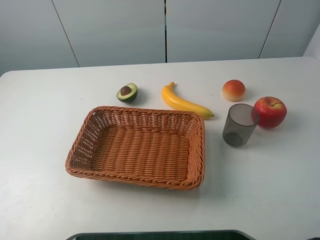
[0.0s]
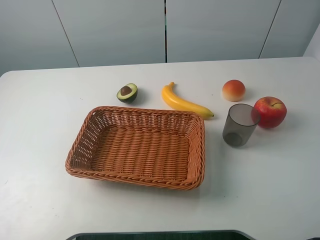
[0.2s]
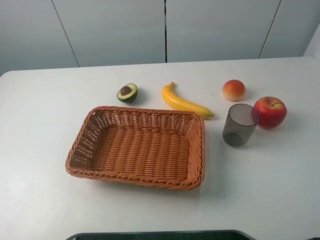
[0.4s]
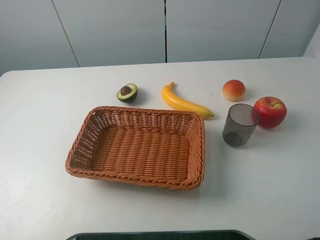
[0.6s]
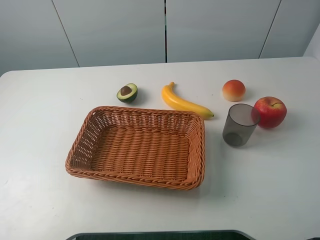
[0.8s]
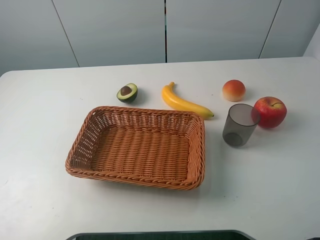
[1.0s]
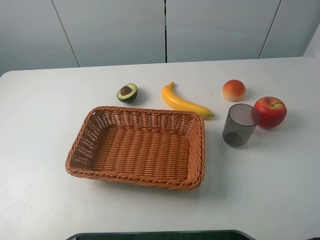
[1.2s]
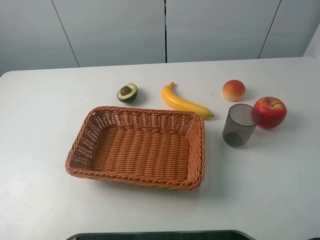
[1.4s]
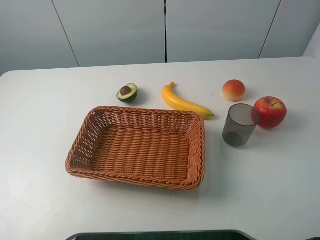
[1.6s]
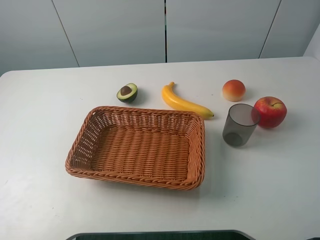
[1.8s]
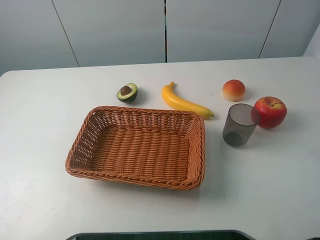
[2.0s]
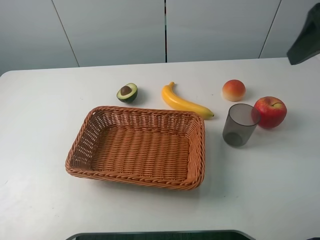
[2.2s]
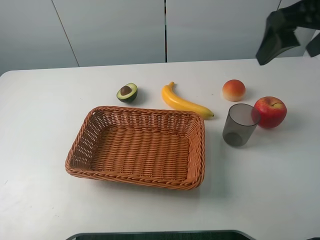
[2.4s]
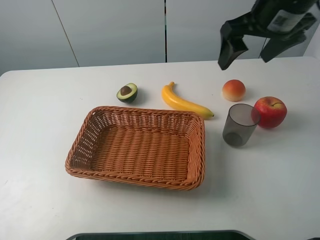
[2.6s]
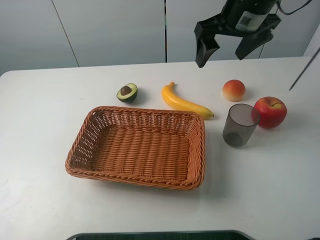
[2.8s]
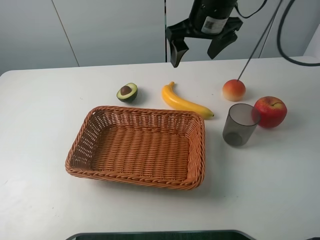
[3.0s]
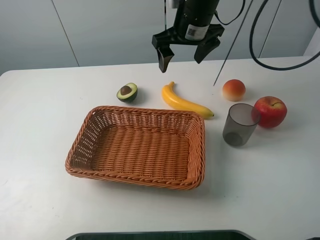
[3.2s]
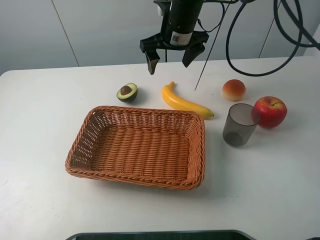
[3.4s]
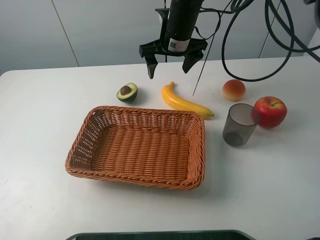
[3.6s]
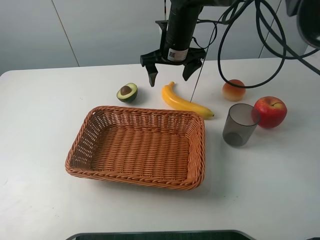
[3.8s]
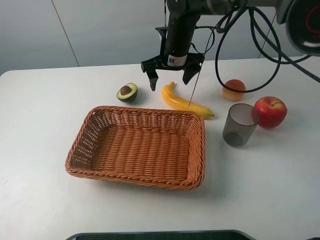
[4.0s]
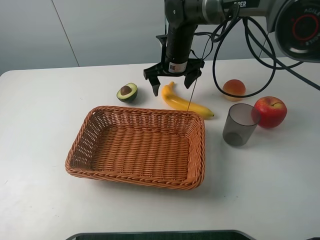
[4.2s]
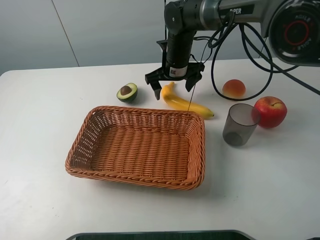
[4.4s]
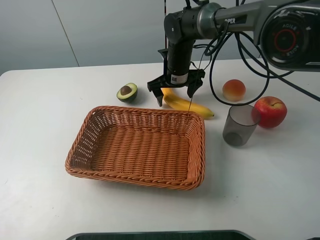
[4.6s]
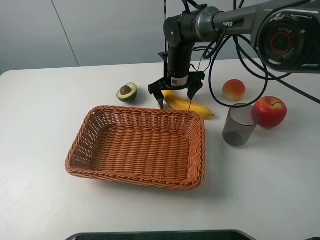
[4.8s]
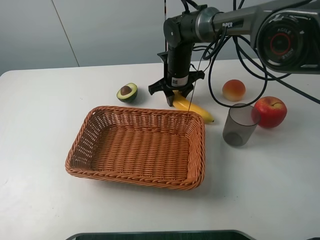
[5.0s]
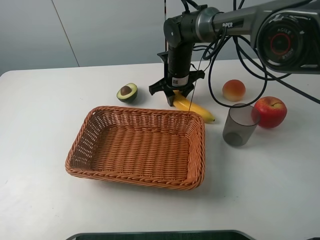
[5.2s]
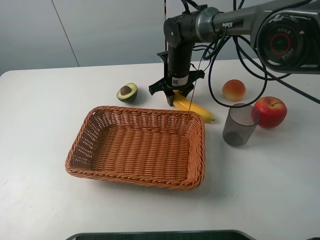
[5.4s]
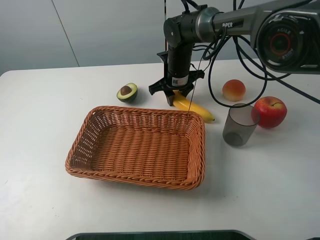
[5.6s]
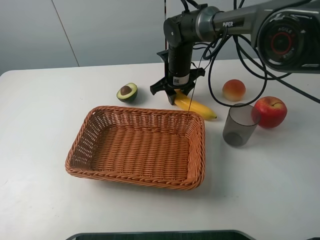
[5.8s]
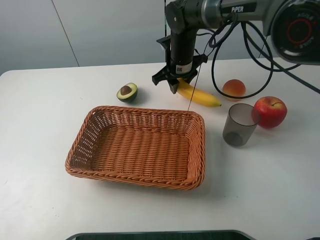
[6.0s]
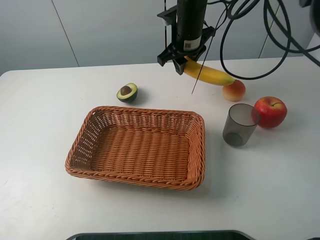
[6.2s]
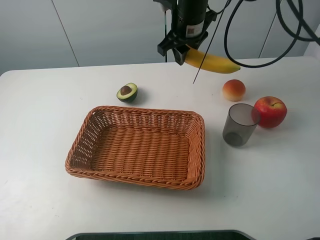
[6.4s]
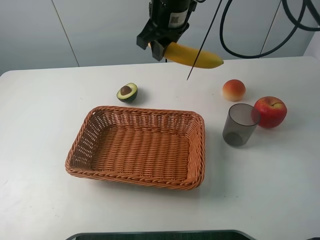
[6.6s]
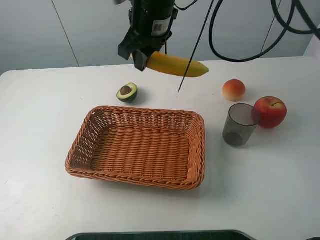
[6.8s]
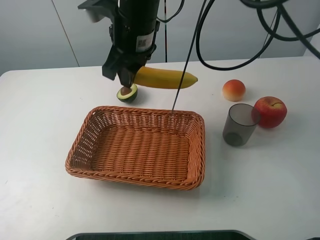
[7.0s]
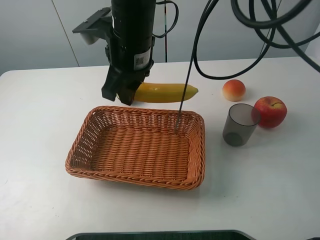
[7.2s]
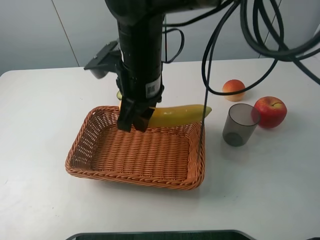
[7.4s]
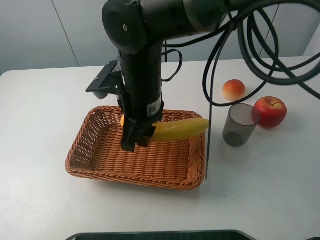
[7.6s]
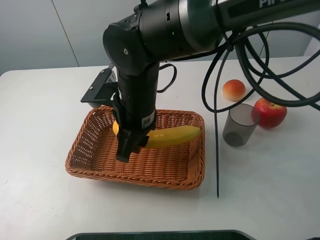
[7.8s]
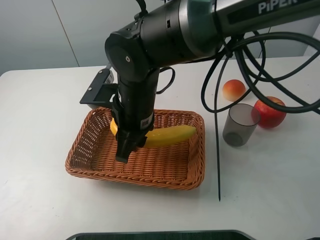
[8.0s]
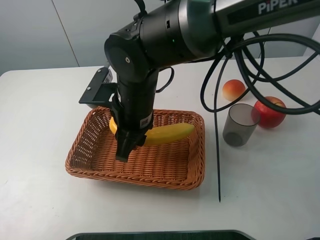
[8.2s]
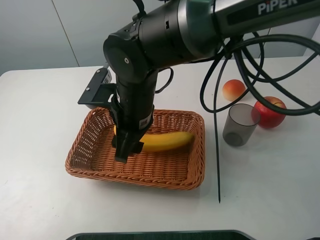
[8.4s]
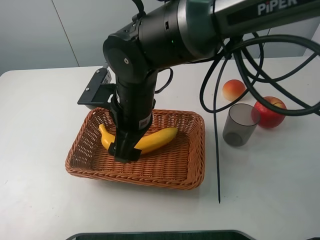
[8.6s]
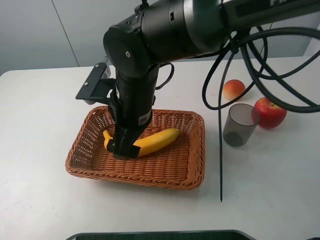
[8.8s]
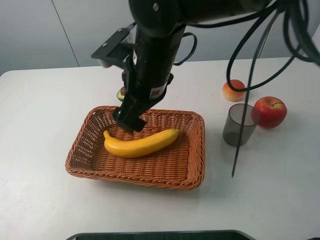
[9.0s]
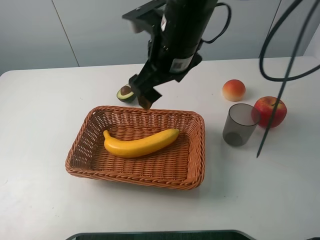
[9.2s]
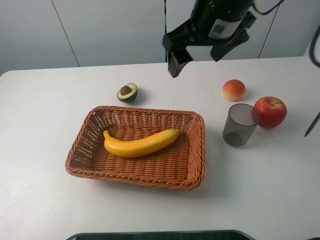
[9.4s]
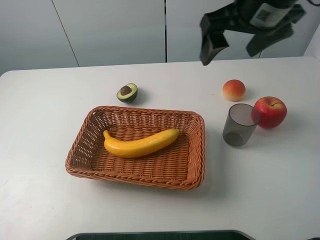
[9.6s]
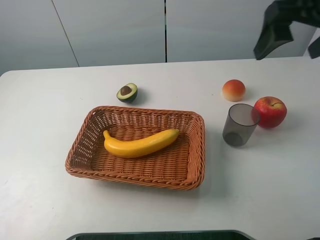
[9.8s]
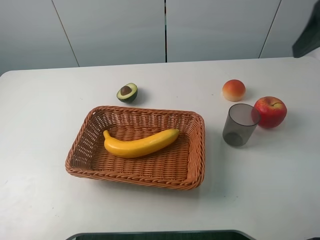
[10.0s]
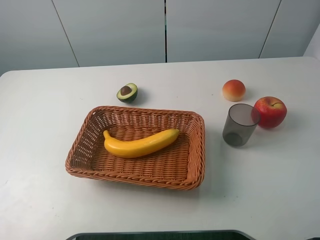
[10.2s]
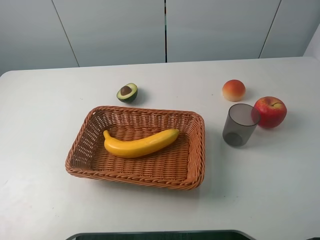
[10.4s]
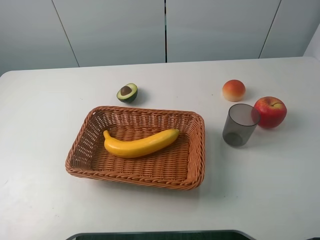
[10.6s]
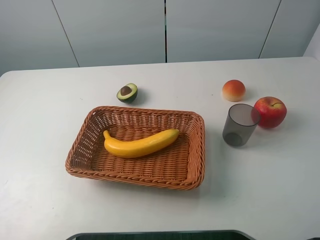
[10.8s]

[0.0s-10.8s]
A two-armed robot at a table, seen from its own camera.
Task of the whole recording: randomly pick up an item from the table and put it in the basket.
Step, 0.0s to 5.0s: Grasp the banana with the right gripper.
Step, 5.2s to 9.0s: Place the banana into the basket with the right gripper.
1.6s to 3.0s: The right gripper moves forward and to the left, approximately 40 cm.
3.0s to 4.6s: The right gripper heads downward, covering about 15 cm.
4.6s to 6.2s: The right gripper is displaced upward by approximately 10 cm, and closes.
6.2s to 7.8s: The right gripper heads backward and to the left, covering roughly 20 cm.
7.8s to 9.2s: The right gripper goes about 10 cm upward and to the right, and opens.
9.2s to 10.8s: The right gripper moves backward and to the right, about 35 cm.

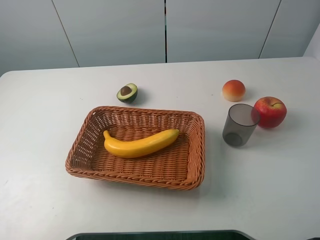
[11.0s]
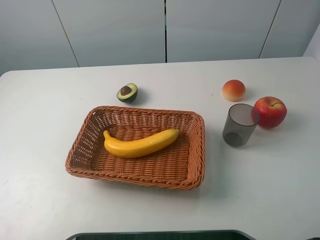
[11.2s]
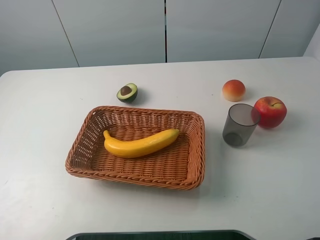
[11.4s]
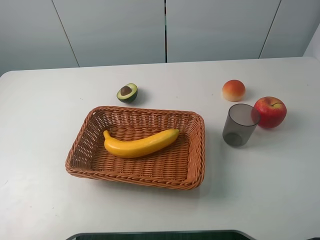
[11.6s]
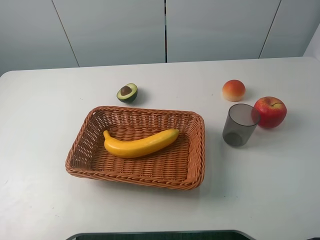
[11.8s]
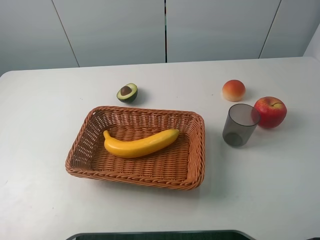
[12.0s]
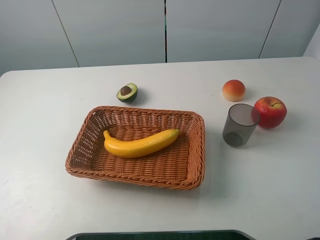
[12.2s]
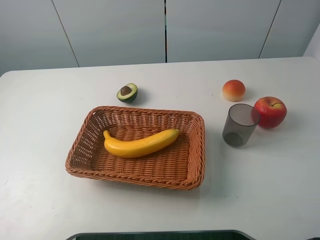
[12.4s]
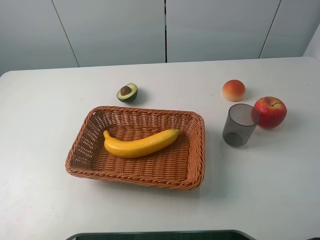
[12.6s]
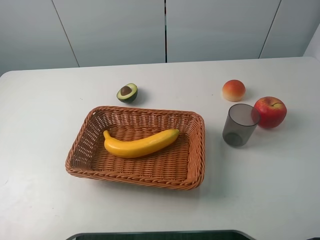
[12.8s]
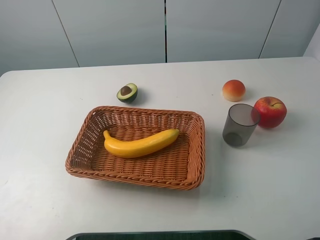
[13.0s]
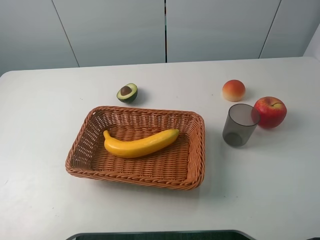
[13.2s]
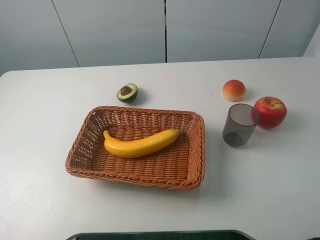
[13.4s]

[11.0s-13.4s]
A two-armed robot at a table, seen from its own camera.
Task of the whole recording: randomly pick up an item from the table and put it in the basket.
12.2s to 13.4s: Both grippers stay about where they are.

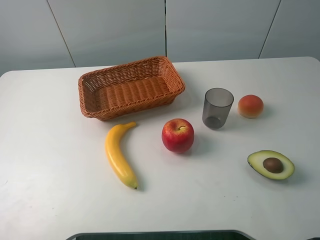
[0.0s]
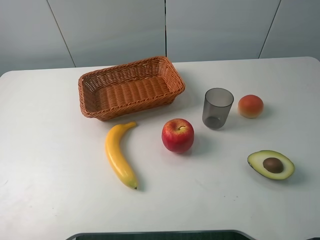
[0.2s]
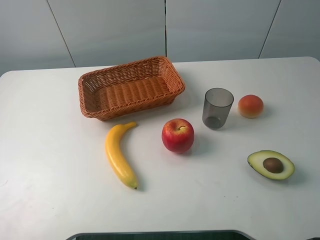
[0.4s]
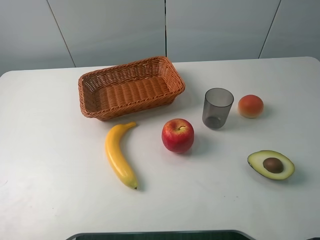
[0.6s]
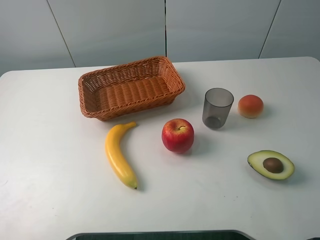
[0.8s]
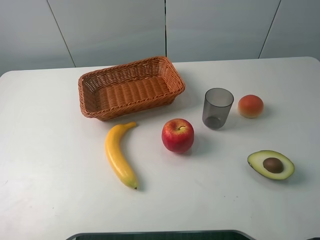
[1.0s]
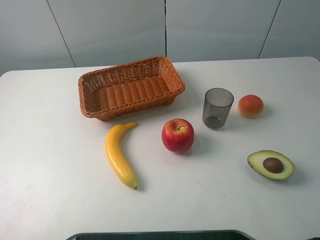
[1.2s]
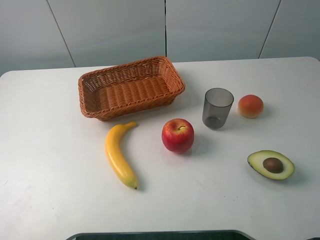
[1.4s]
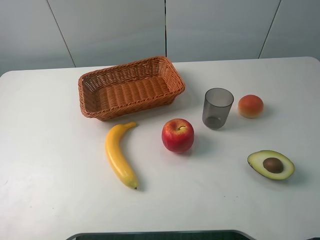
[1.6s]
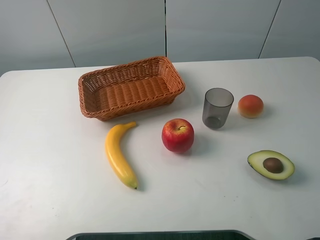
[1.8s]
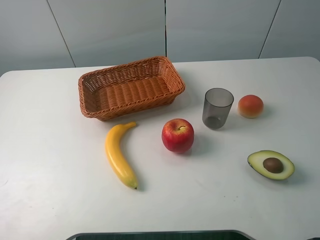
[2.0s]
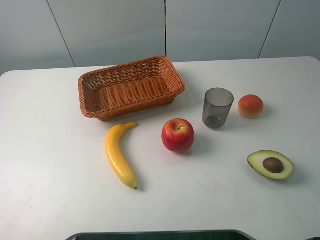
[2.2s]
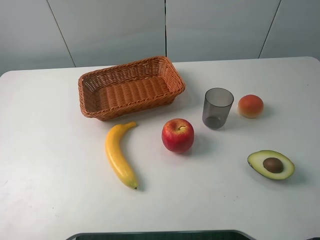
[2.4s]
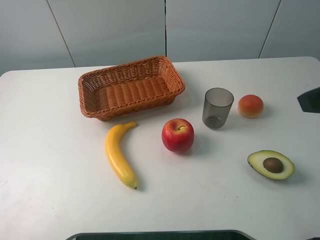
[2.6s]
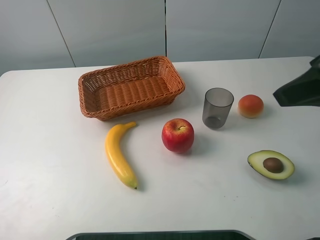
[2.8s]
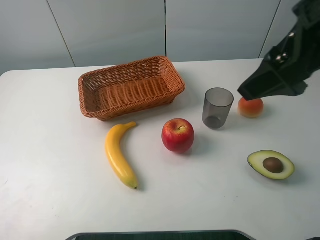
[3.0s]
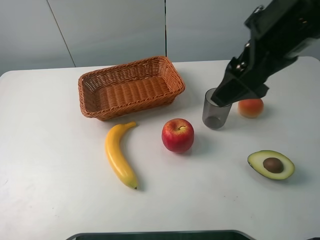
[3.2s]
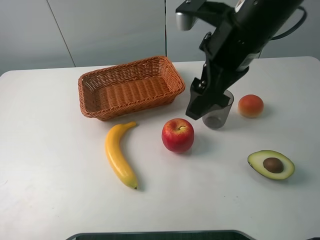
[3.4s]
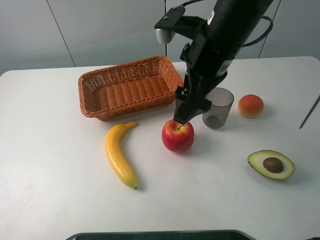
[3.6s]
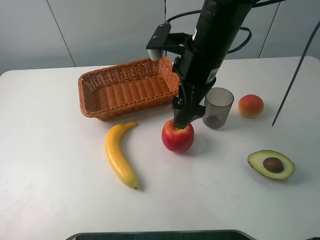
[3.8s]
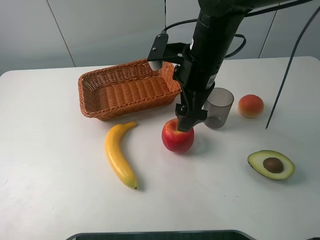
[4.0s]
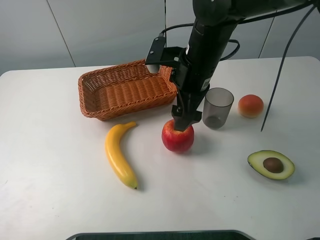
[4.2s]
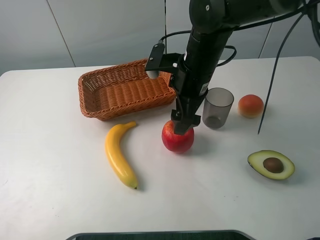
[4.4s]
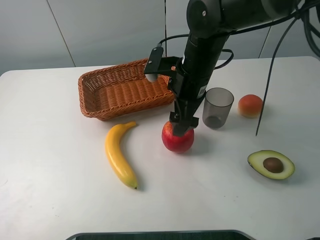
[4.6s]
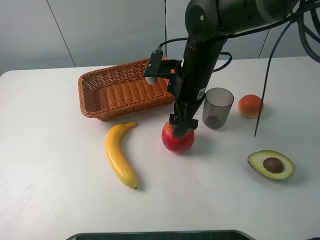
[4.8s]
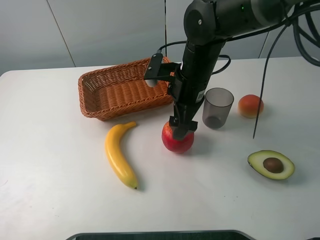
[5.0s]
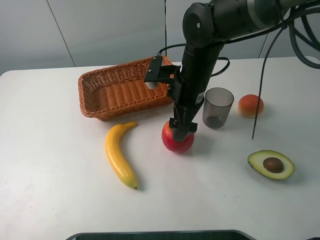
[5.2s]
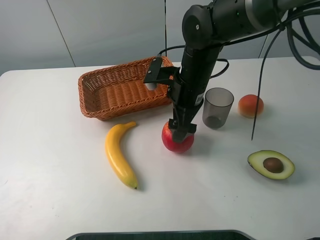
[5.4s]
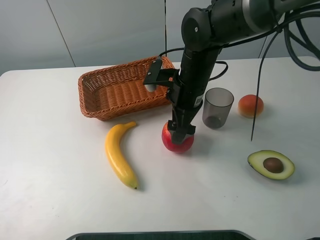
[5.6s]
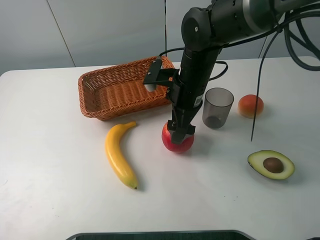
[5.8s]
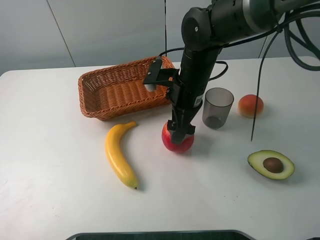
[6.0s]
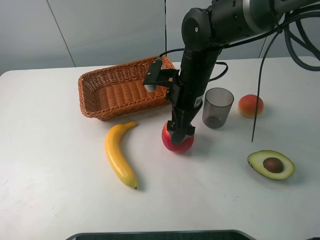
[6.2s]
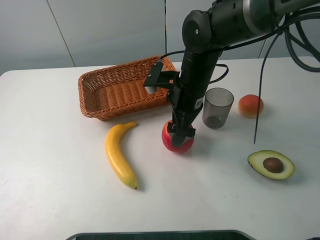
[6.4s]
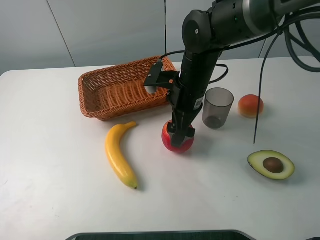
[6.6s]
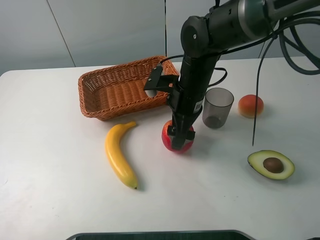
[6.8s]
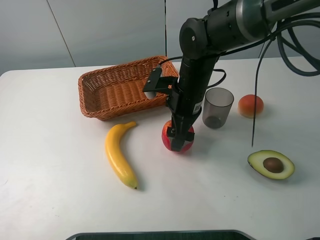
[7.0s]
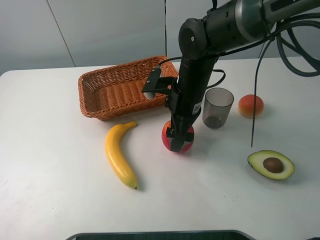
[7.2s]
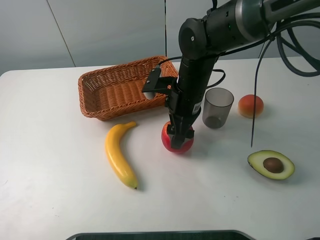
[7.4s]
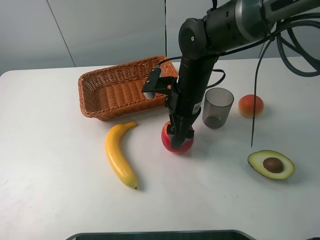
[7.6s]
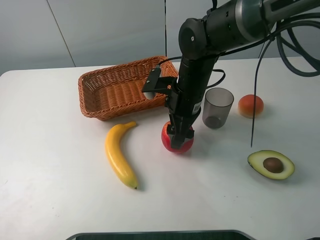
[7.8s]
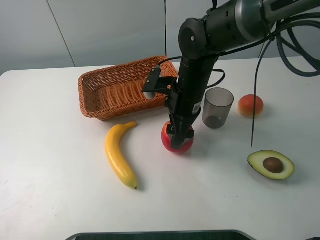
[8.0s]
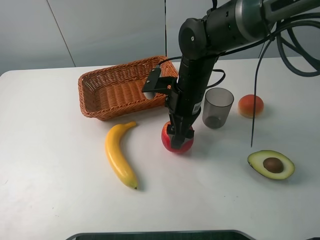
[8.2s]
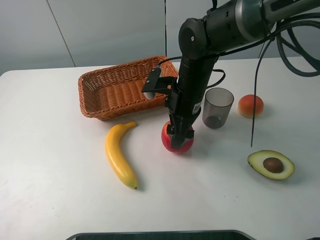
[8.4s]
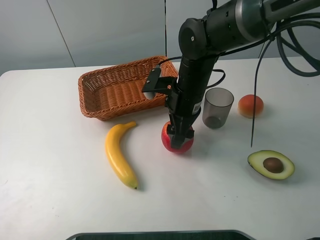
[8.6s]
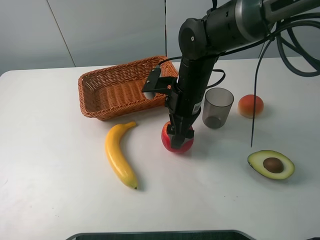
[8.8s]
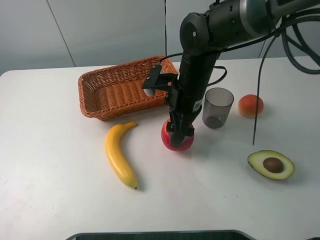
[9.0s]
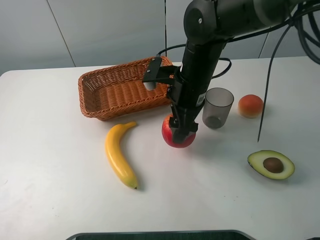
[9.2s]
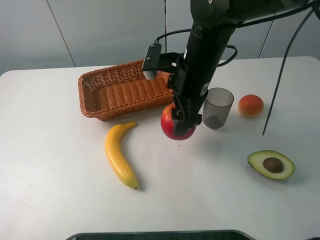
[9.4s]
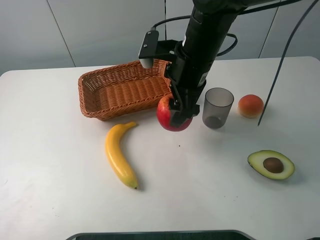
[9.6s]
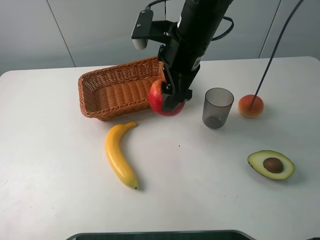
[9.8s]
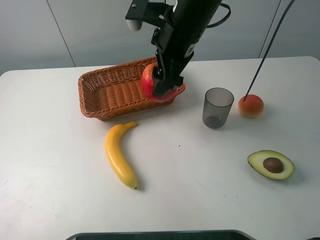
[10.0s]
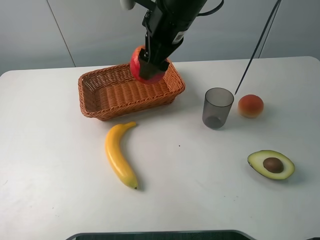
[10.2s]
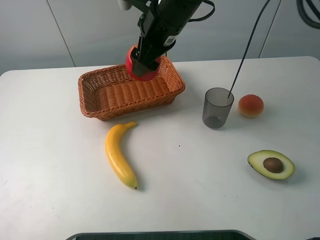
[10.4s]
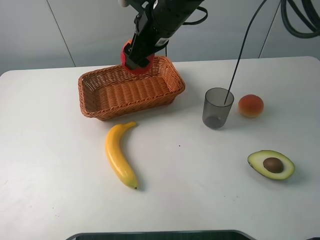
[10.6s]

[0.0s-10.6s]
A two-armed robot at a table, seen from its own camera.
Task of the whole recording: randomly pick up an item from the table and put it in the basket.
Step, 0.0s to 8.2s: Grasp the apple with the right gripper.
0.0s to 1.6s: The two grippers keep their place.
1.6s to 3.0s: The right gripper shifts approximately 20 cm forward and to the left.
3.0s to 4.6s: The right gripper heads downward, to the left and forward, covering approximately 20 cm.
4.6s to 6.0s: The grippers stay close to where they were, moving slightly.
6.0s to 7.6s: The right gripper closes.
7.6s to 9.0s: Both grippers stay put.
9.0s to 10.6s: The right gripper heads upward and forward, covering about 10 cm.
